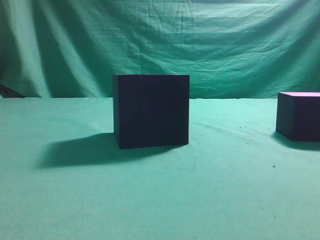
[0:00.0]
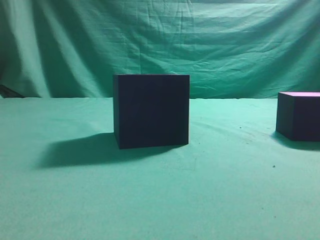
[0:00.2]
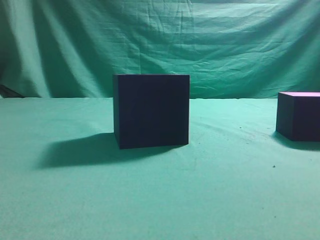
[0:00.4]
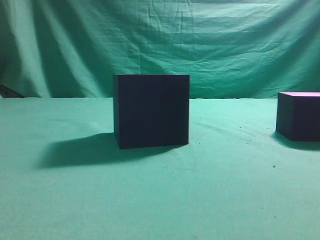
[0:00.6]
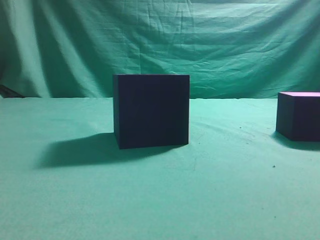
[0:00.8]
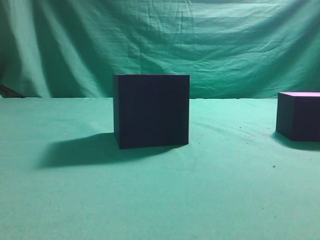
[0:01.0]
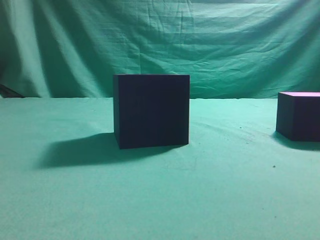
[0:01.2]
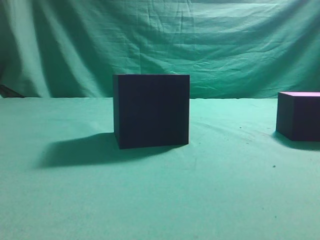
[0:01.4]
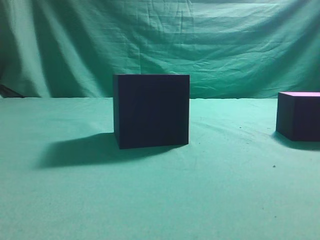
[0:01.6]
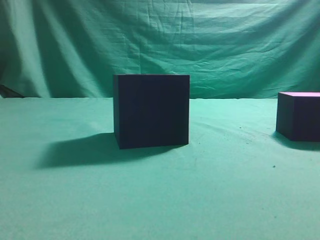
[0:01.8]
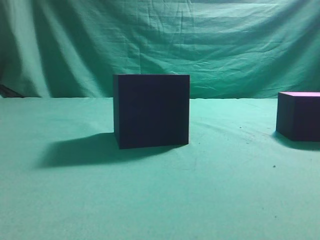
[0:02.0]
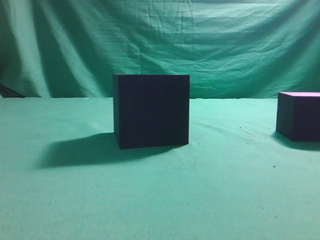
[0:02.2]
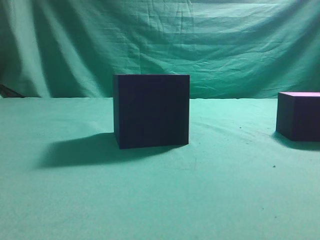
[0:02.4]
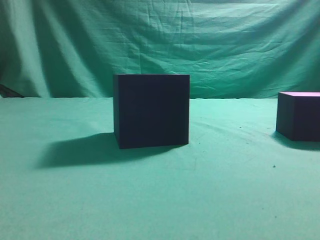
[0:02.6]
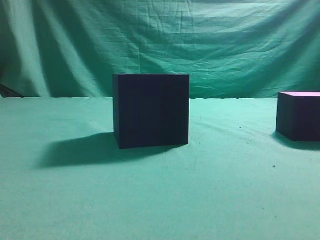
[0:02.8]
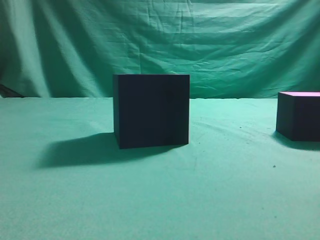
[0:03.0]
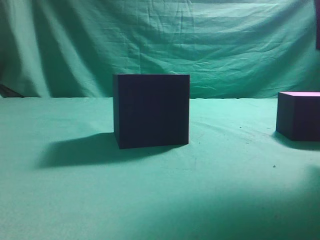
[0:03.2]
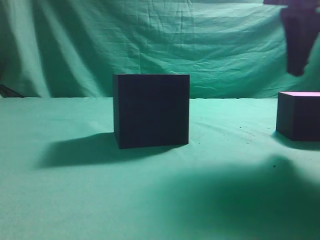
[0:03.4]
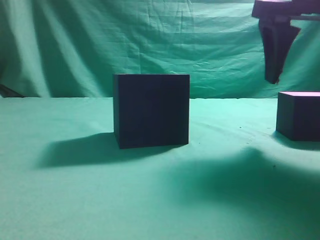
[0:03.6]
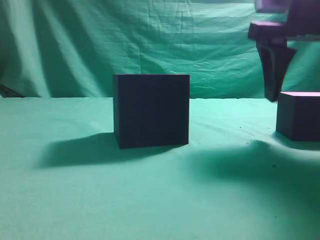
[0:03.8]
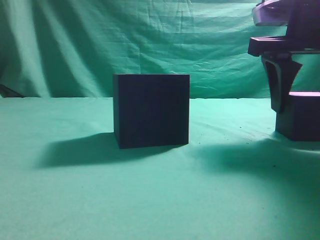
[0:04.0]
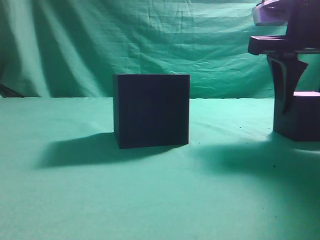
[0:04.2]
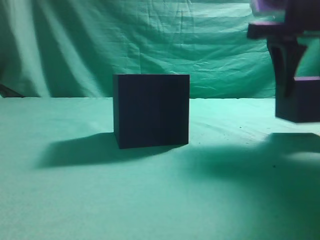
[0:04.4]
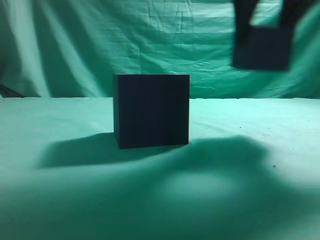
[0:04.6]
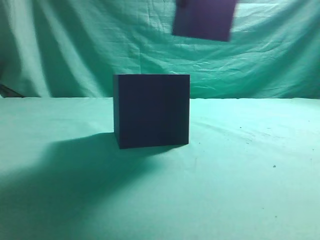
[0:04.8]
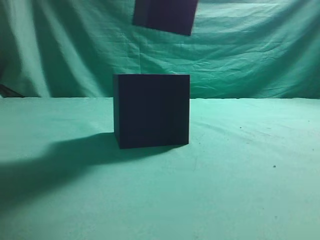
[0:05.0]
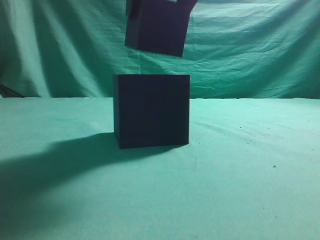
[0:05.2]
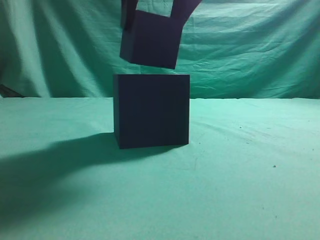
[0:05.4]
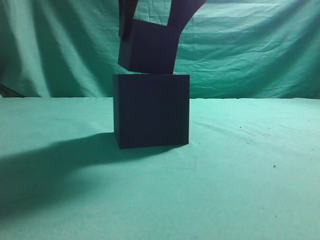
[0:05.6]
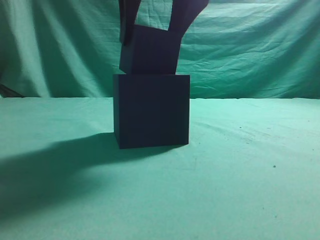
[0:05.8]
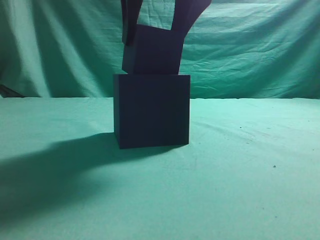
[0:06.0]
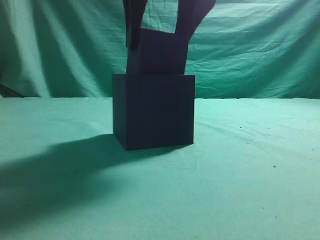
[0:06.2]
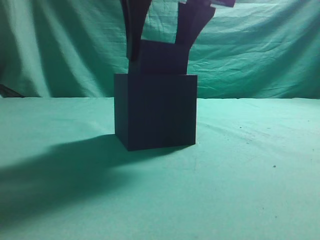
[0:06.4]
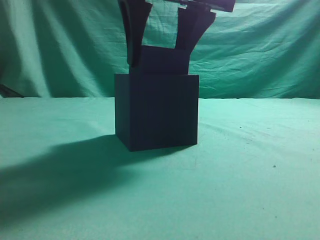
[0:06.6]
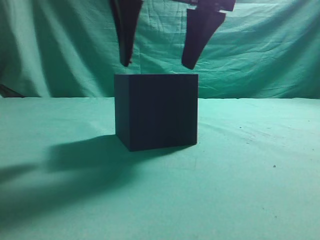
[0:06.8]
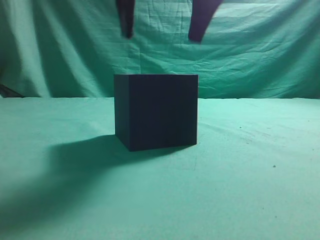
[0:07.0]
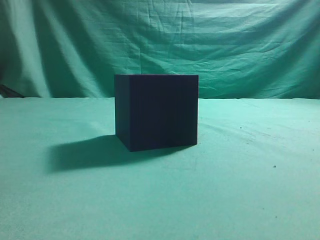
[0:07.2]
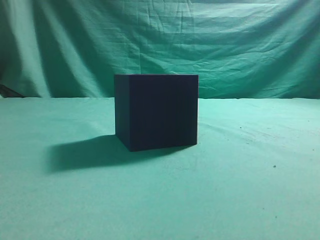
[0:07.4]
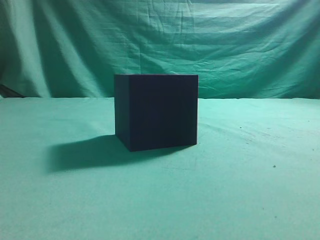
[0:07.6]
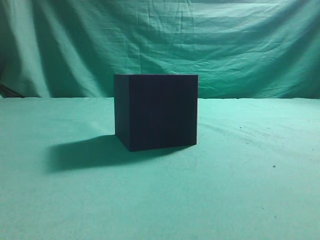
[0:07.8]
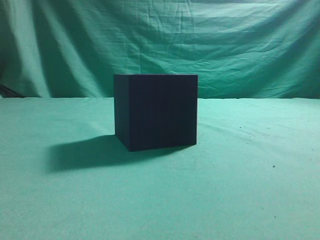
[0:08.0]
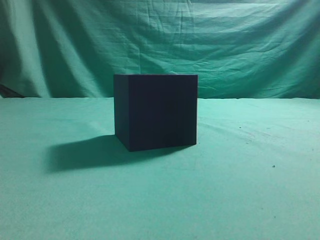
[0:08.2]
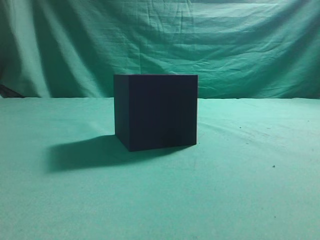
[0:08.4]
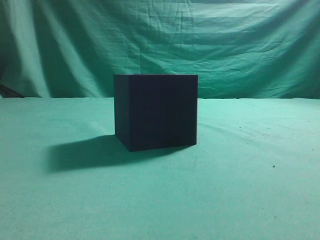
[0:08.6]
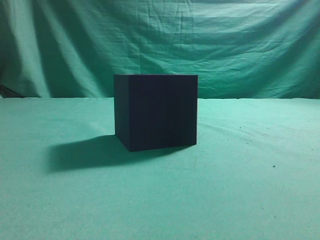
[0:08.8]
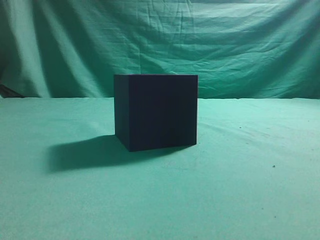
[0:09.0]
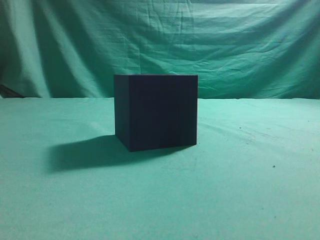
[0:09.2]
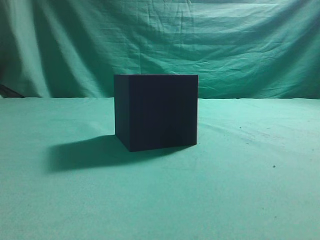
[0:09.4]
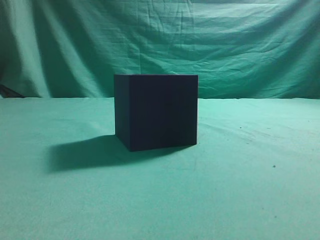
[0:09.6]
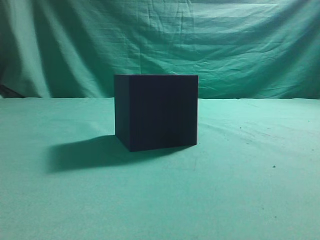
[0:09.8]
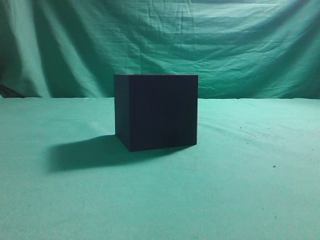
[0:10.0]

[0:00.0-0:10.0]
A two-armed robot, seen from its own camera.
Task of the whole recording: pick up the cube block and place it into the cube groove.
Step, 0:00.0 to 0:04.4: Grasp the cube.
Step, 0:04.6 to 0:06.8: Place cube into the cube-shaped recess.
0:02.8 to 0:04.2: The right gripper shifts about 15 cm downward and forward, and opens its fingers.
0:04.2 to 0:05.8: The right gripper shifts approximately 20 cm to the left and upward.
0:05.8 to 0:07.2: The right gripper goes roughly 5 cm upward, and closes.
